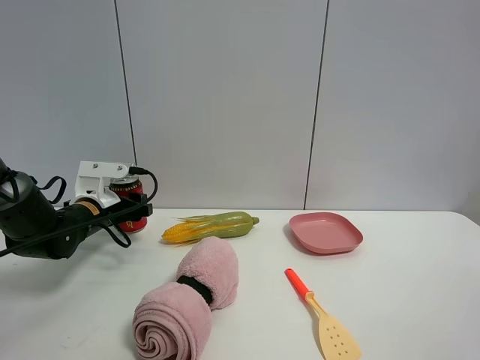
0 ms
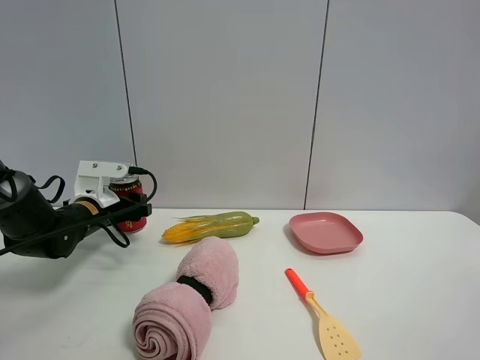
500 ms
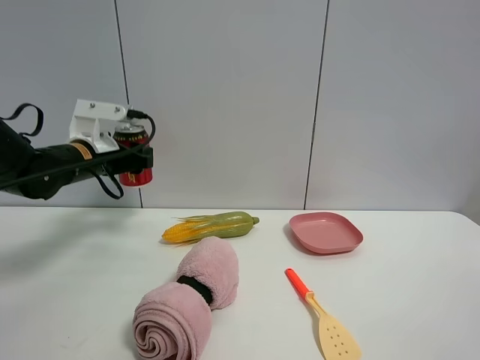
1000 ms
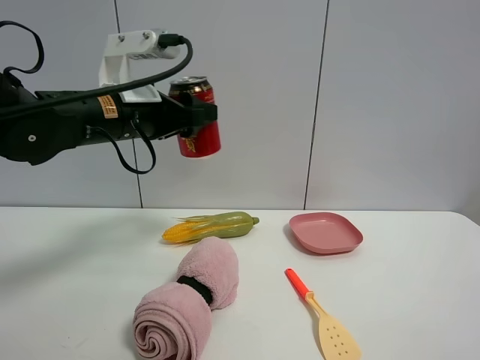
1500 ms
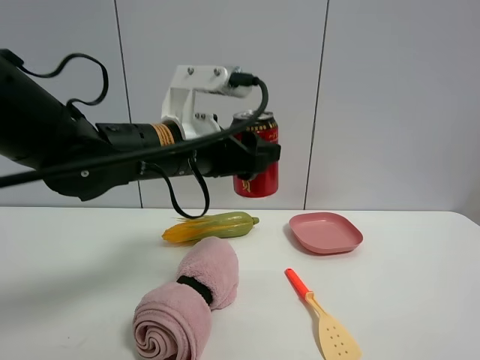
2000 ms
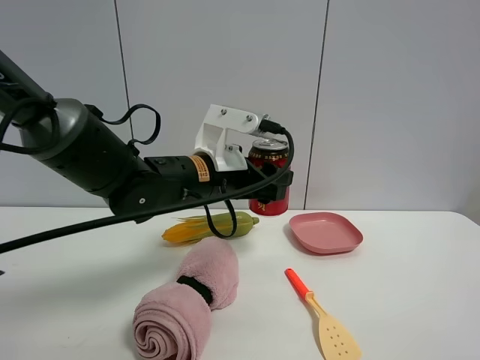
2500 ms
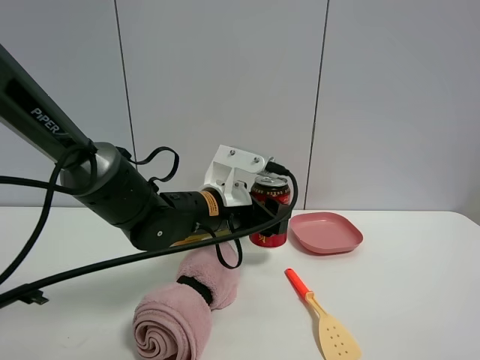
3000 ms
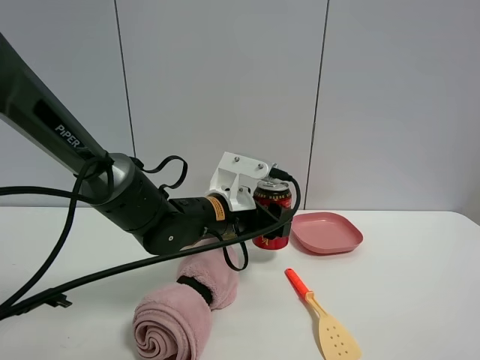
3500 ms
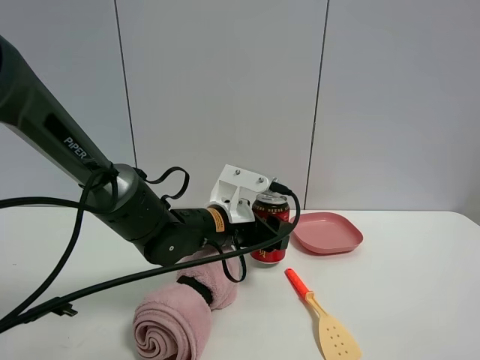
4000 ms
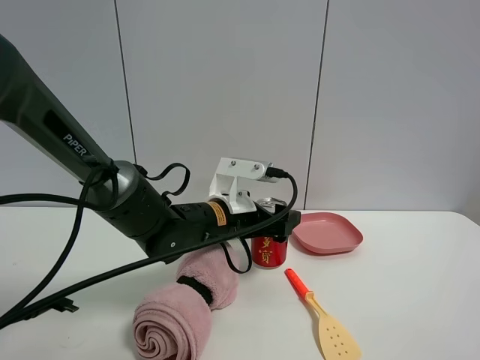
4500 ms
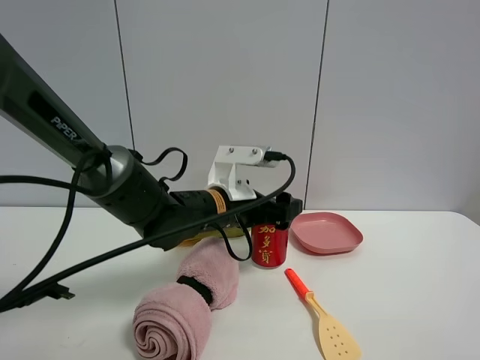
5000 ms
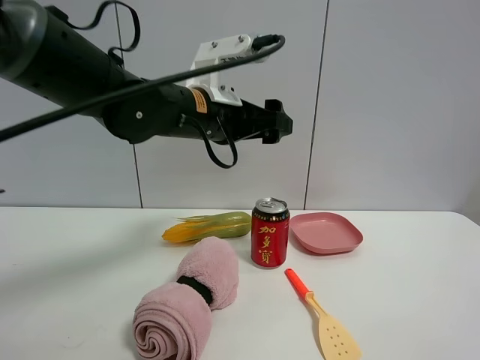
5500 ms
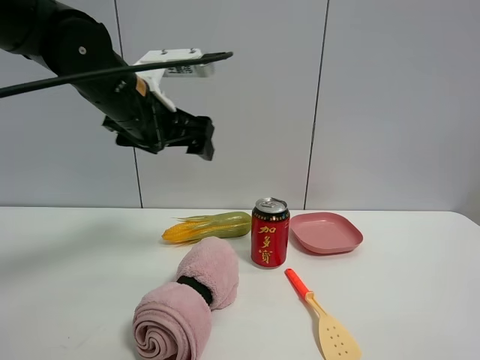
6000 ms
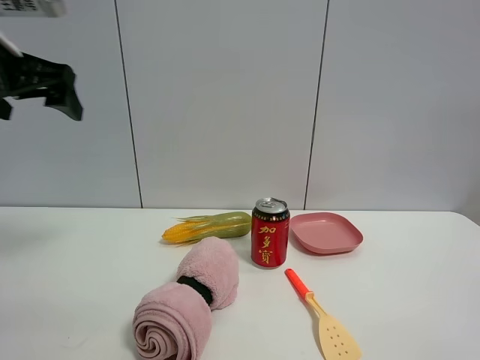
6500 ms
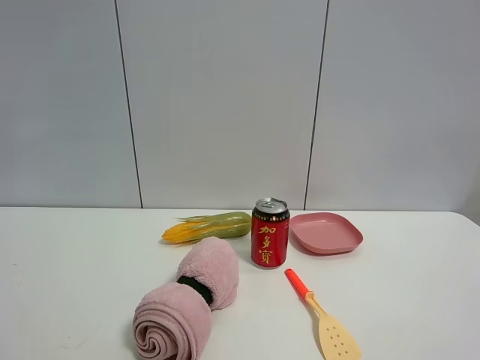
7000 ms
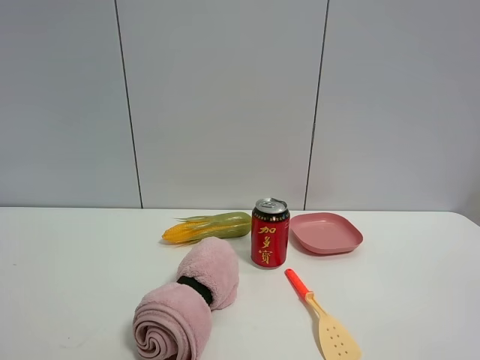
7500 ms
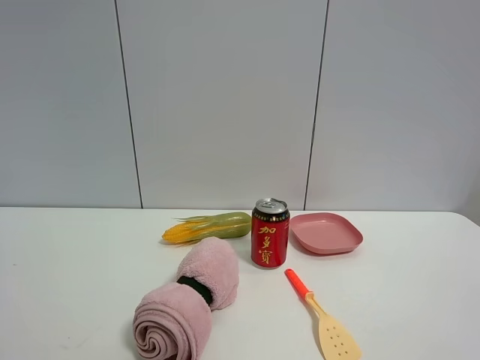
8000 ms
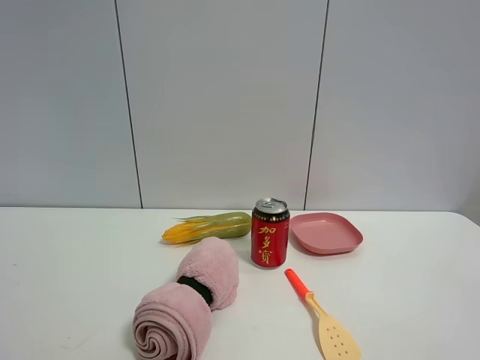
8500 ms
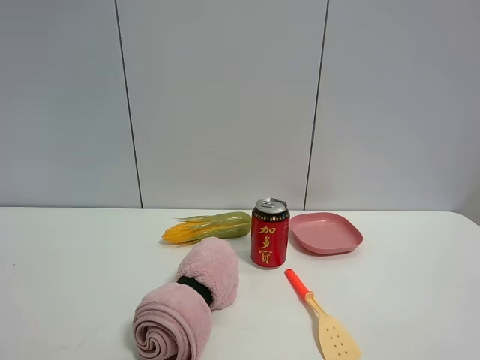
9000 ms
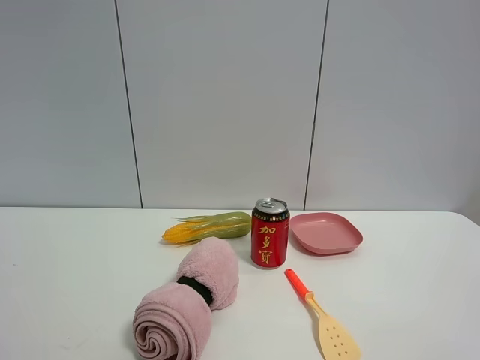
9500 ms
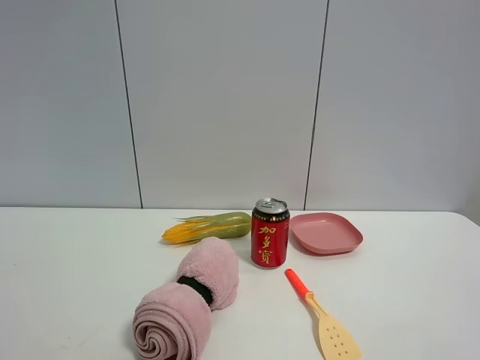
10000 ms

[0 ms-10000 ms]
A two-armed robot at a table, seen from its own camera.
Task of the whole recording: the gripper move the object.
Step, 500 ms to 4500 ms: Place the Jia Duo Bao on the table with the left gripper.
0 ms to 2000 ms: The left gripper goes roughly 25 cm to the right, upward and backward.
2000 ms to 4000 ms: The left gripper moves downward and forward, some 15 cm.
4000 ms to 6000 ms: The left gripper is displaced upward and to the left by approximately 20 cm, and opens up.
6000 ms to 8000 ms: The left gripper travels backward and to the left by some 40 cm.

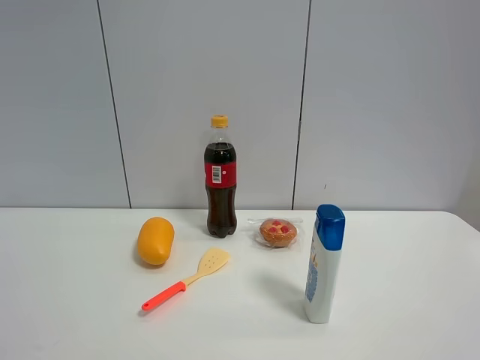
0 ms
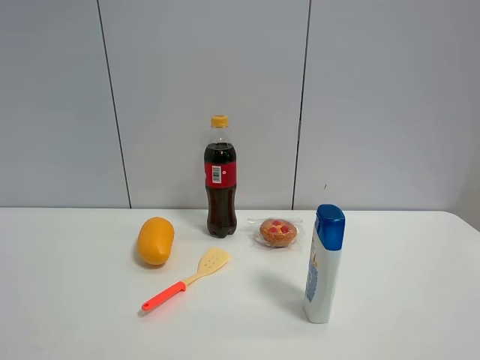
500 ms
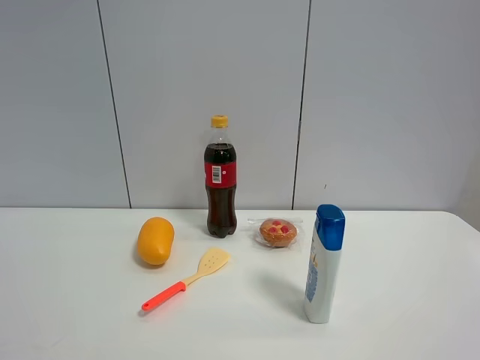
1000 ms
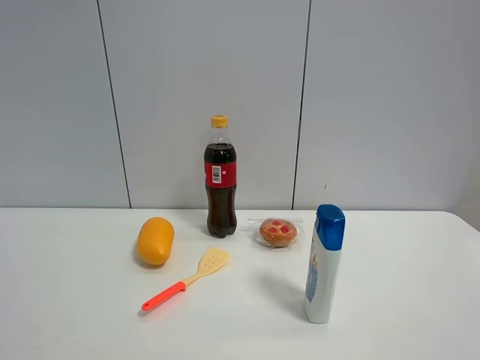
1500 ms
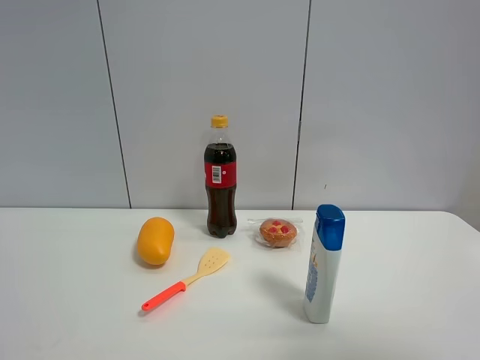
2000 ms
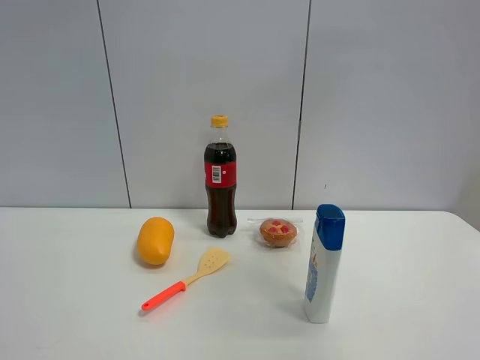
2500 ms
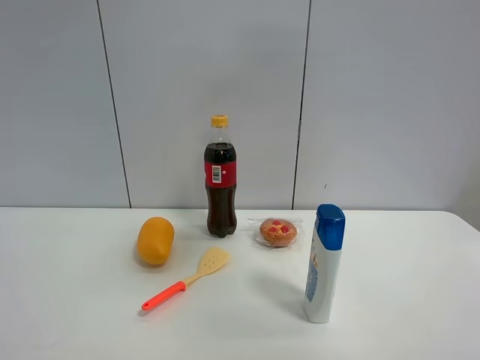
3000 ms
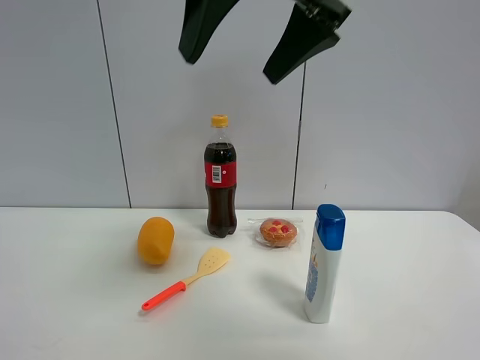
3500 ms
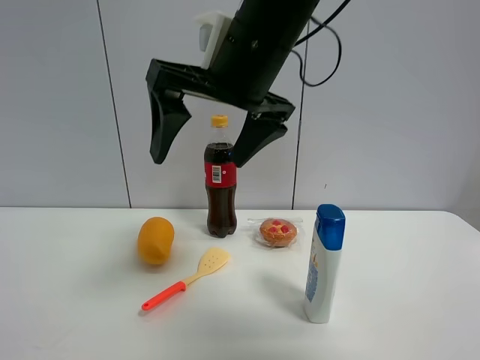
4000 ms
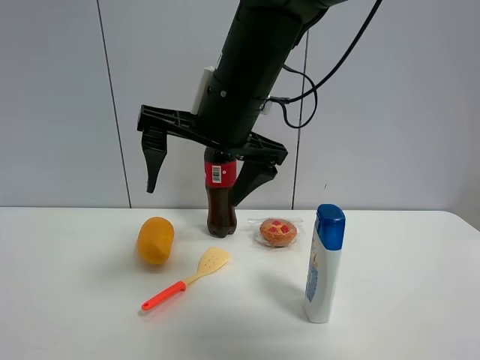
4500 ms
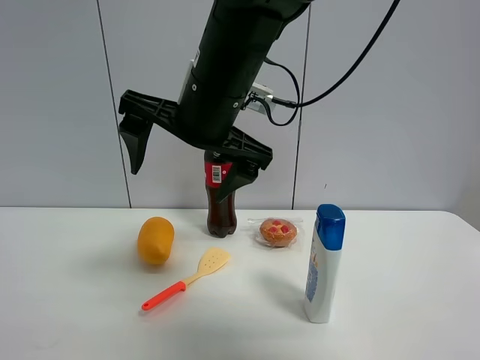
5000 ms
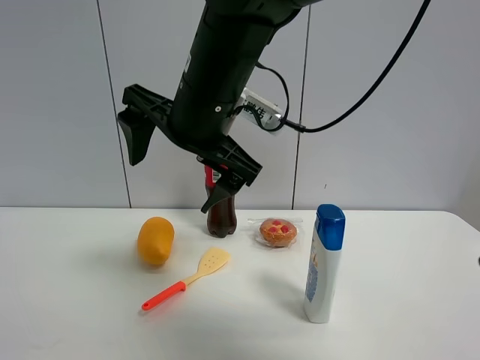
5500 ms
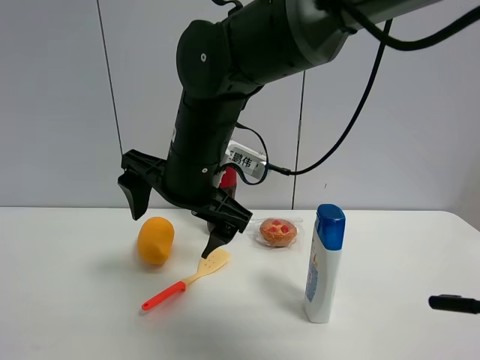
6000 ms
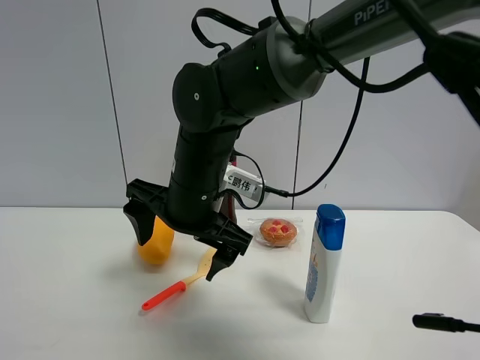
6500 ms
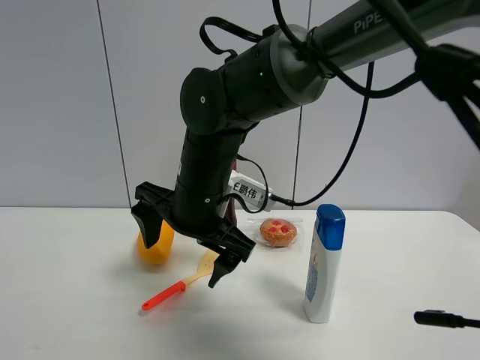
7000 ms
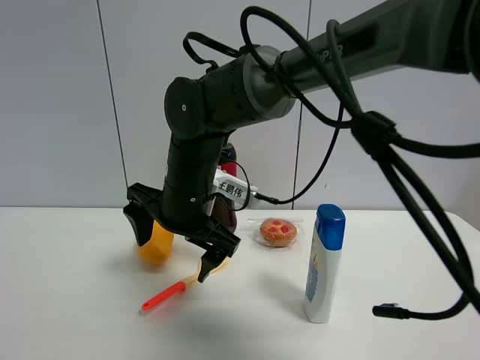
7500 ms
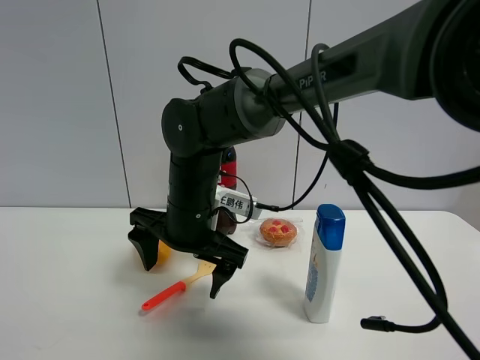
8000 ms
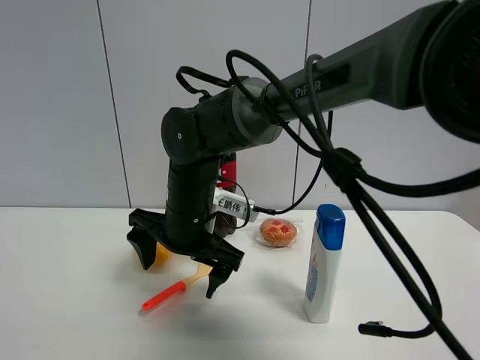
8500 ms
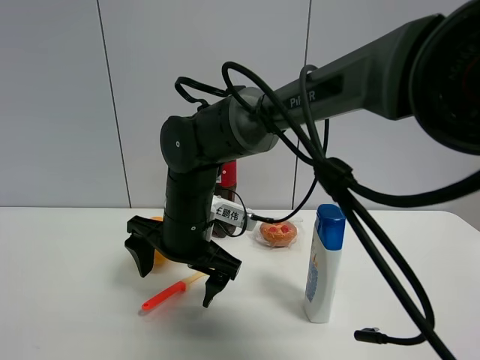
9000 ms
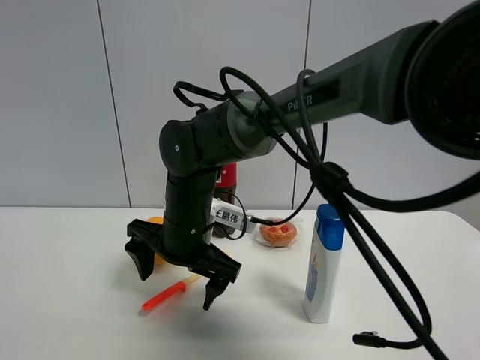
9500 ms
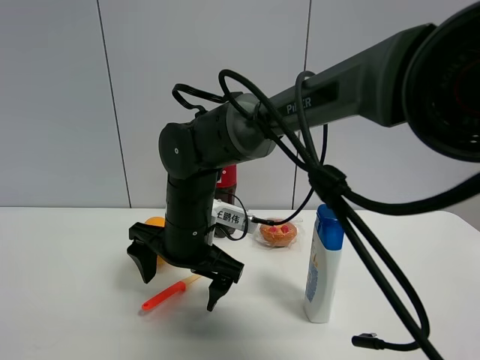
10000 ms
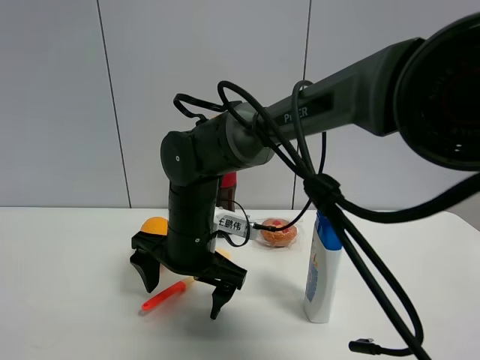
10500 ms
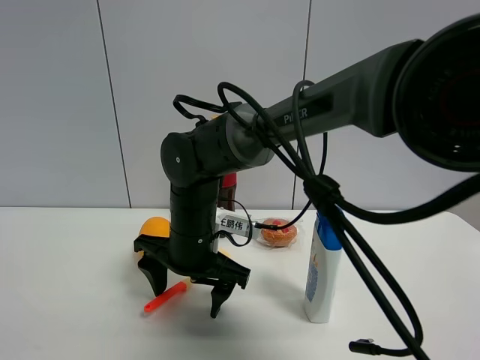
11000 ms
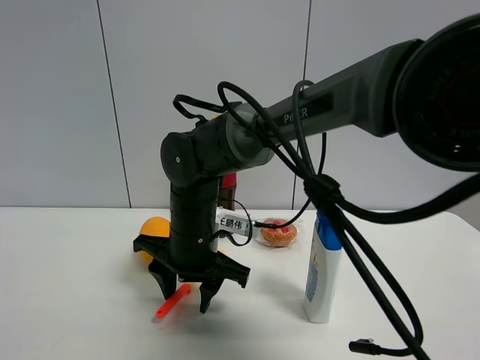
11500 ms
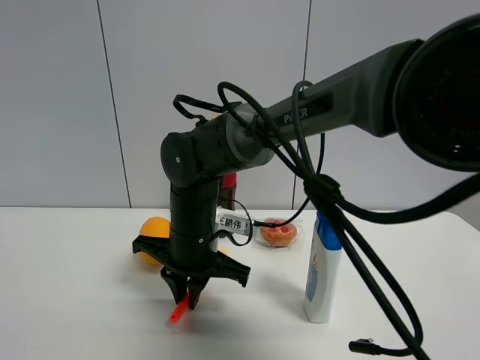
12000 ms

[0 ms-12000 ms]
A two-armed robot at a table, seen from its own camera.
Task of the whole recording: the gripper move the object.
Step, 0 ms to 11500 ms: Grasp the cooking shovel with the right gripper.
0 ms to 2000 ms: The right gripper travels upward and forward by approximately 10 cm.
2000 ms to 4000 ms: The right gripper shifts about 35 cm to the left and forward.
4000 ms to 6000 ms: The right gripper shifts roughly 15 cm downward and to the left.
6000 ms to 8000 ms: The right gripper moves downward, approximately 5 cm.
10000 ms to 12000 ms: The right gripper closes.

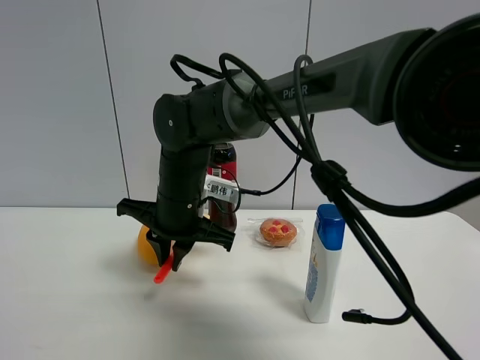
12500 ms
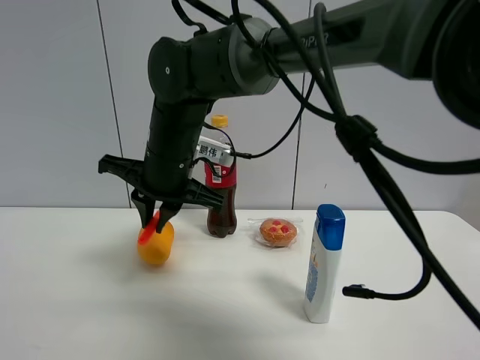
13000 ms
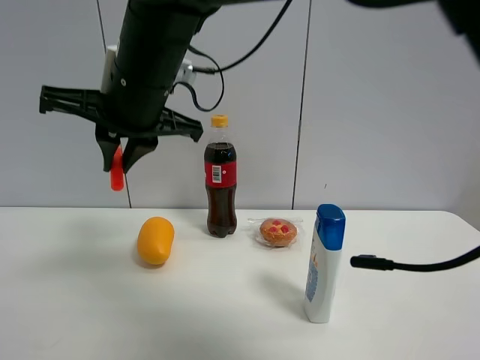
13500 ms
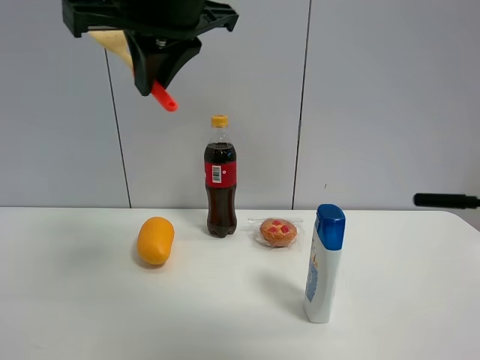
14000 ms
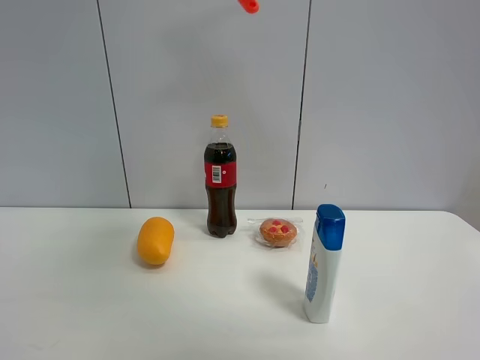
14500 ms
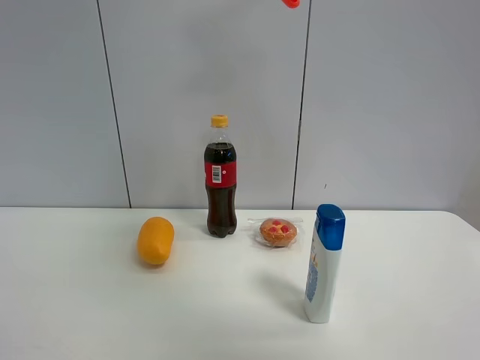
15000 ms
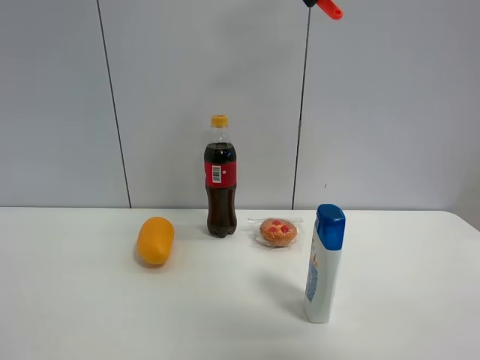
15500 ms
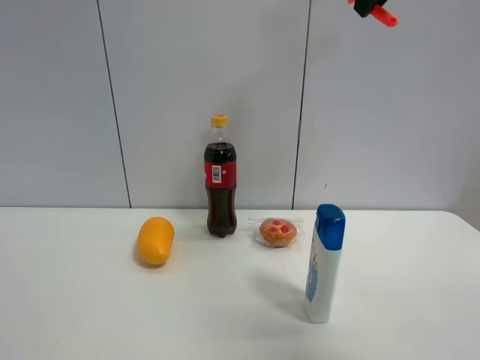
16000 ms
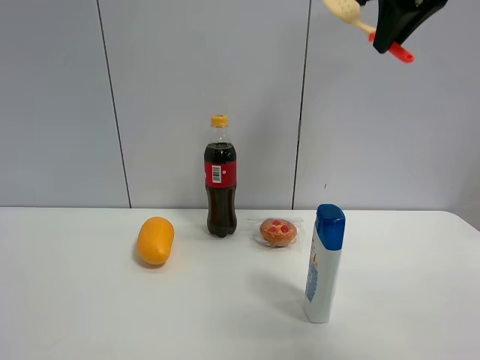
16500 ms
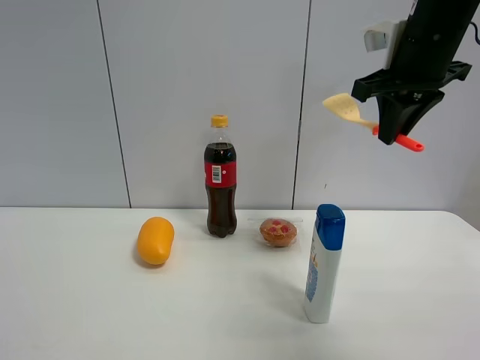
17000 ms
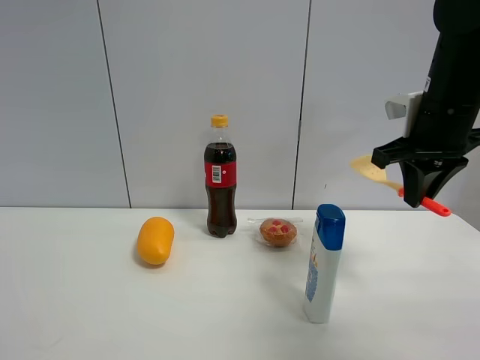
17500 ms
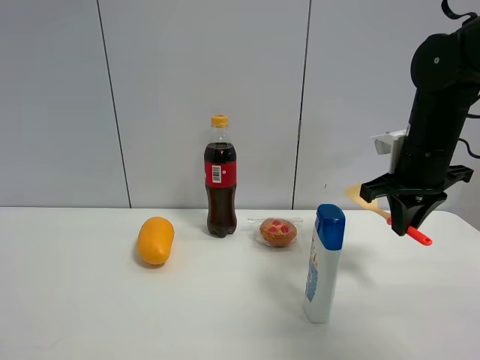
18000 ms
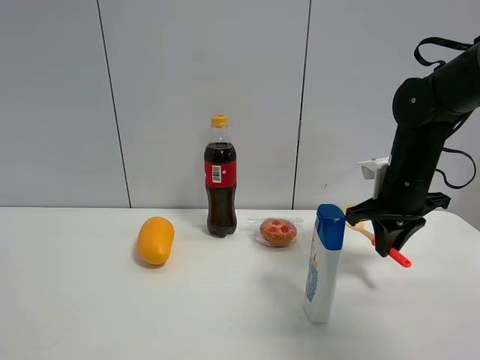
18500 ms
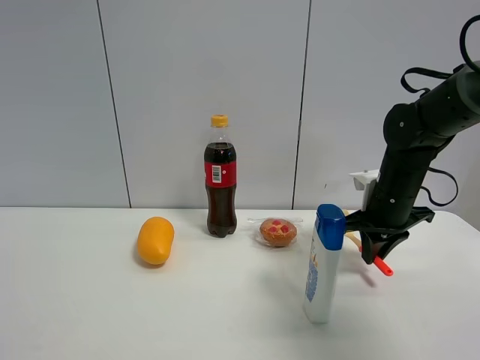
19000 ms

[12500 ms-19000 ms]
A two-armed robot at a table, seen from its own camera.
Task of the whole recording: the gripper move the object.
12500 ms to 14500 ms: The right gripper shifts approximately 30 cm upward.
14500 ms to 17000 ms: The right gripper is displaced to the right, downward and forward by about 25 cm.
17000 ms to 19000 ms: The right gripper moves downward, roughly 20 cm.
